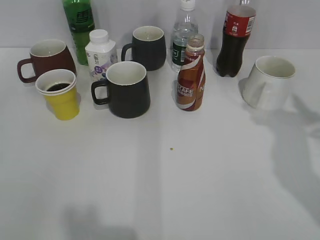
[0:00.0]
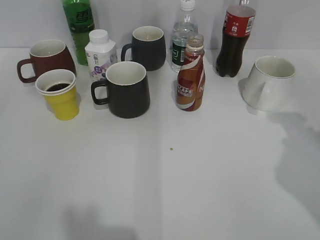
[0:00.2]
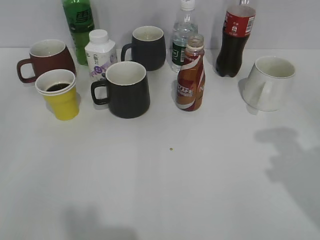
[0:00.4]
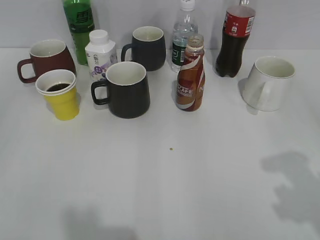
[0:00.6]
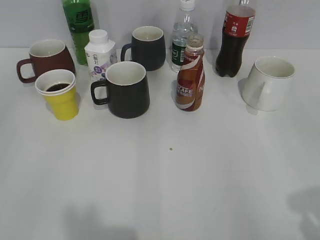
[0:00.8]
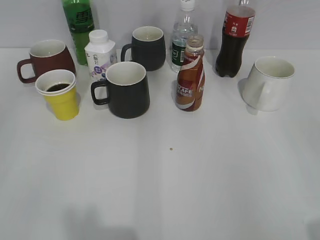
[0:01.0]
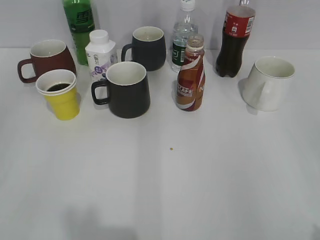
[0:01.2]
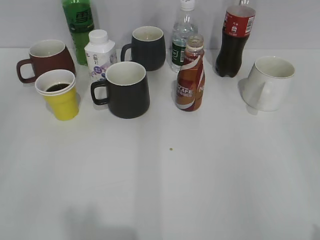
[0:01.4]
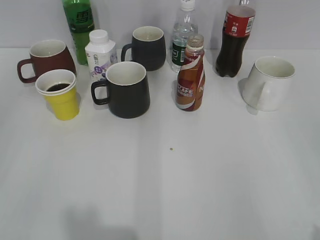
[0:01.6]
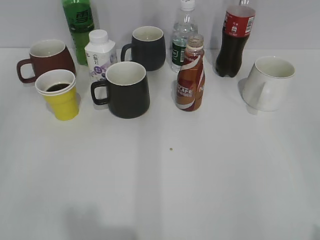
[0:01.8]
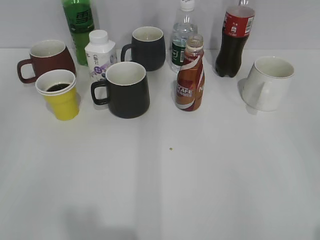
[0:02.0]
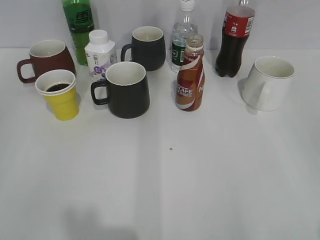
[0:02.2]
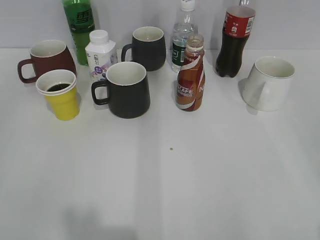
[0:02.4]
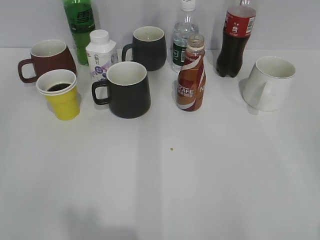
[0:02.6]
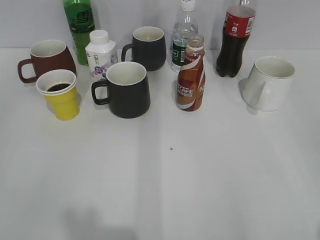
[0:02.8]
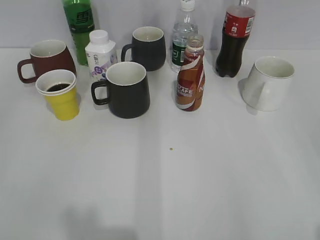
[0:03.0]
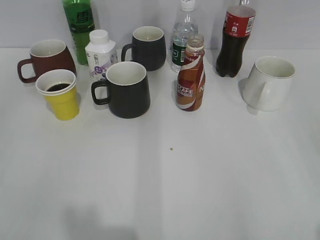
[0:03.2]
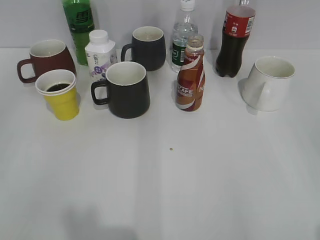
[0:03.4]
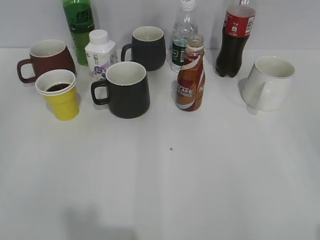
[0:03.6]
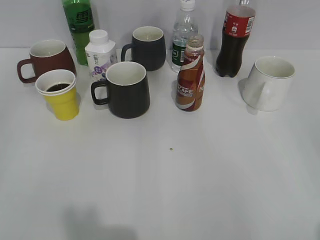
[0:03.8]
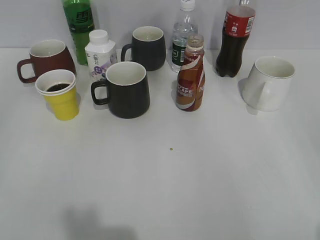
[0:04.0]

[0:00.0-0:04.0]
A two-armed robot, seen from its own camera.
0:00.0 to 0:01.4: The right gripper is displaced backward by roughly 25 cm.
0:01.4 to 0:04.0: The grippers make only small movements.
